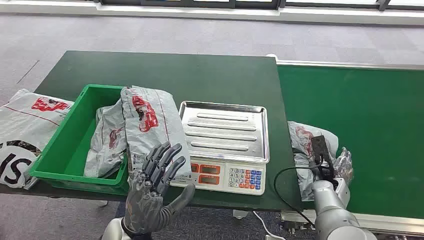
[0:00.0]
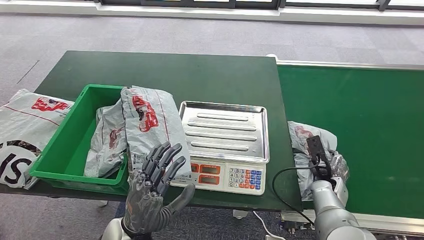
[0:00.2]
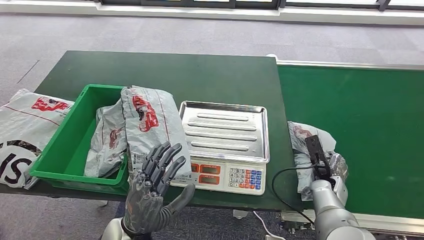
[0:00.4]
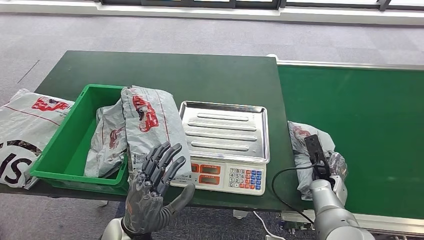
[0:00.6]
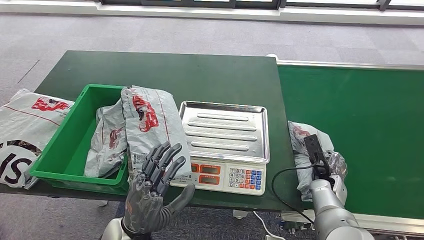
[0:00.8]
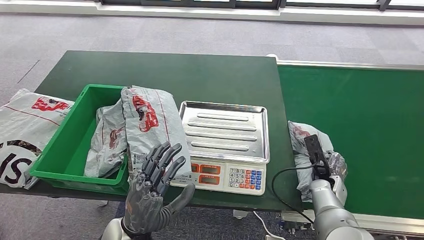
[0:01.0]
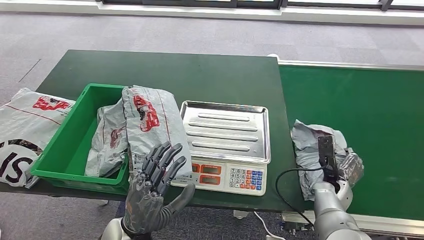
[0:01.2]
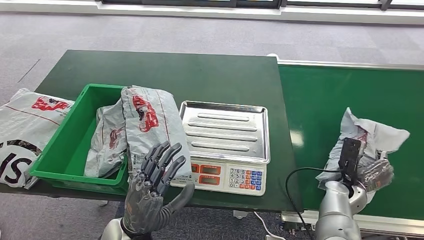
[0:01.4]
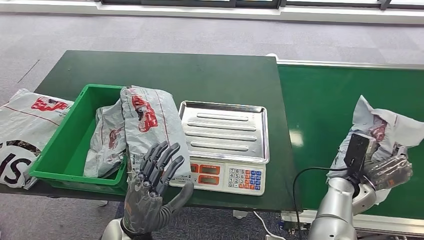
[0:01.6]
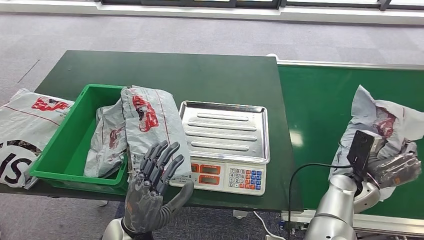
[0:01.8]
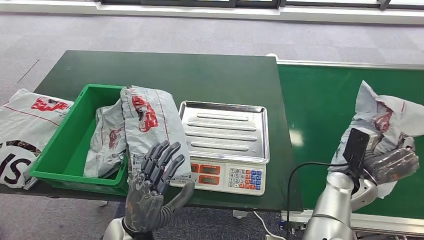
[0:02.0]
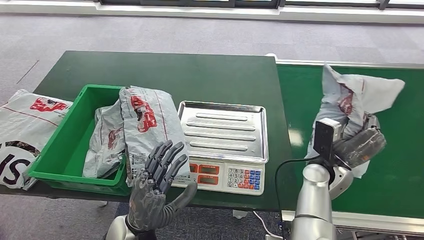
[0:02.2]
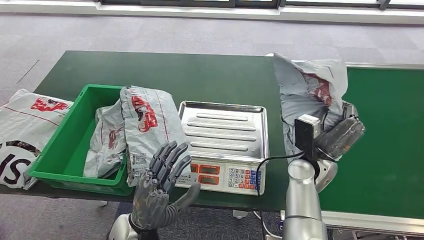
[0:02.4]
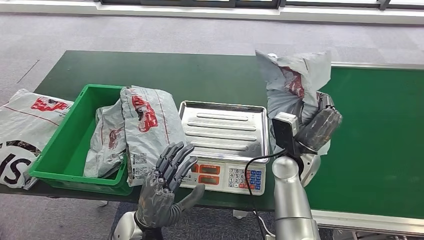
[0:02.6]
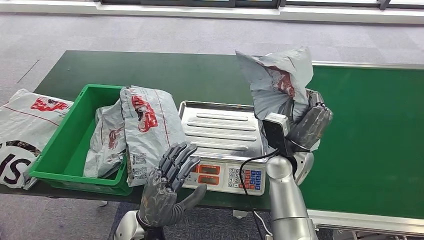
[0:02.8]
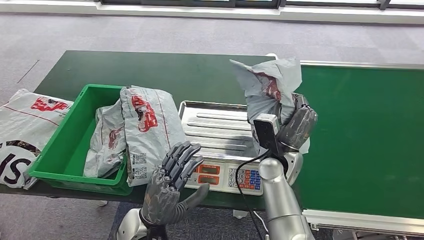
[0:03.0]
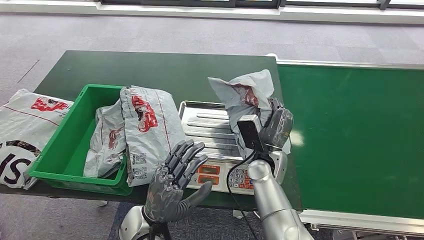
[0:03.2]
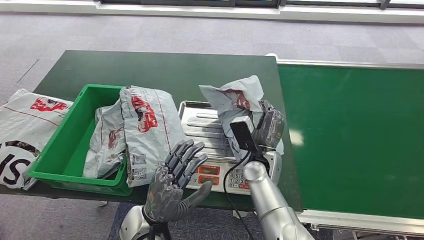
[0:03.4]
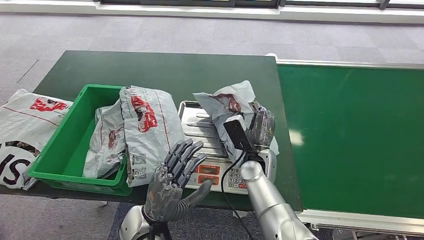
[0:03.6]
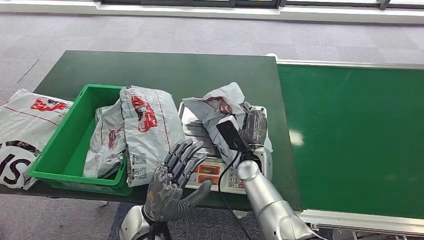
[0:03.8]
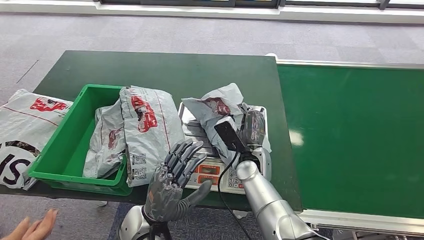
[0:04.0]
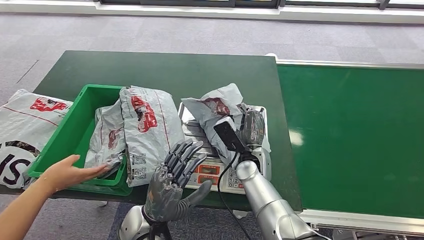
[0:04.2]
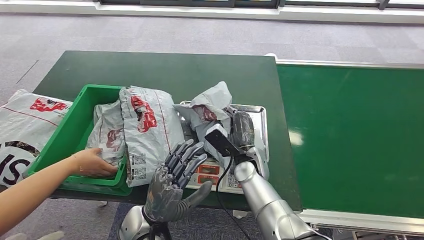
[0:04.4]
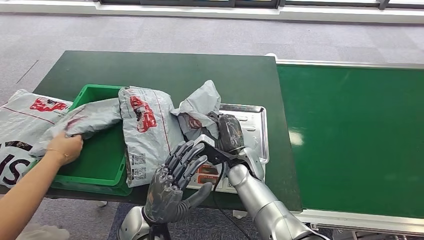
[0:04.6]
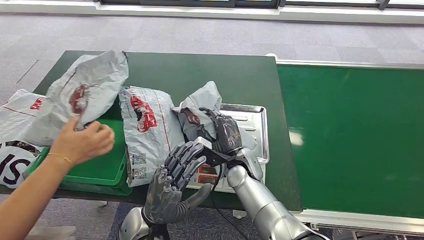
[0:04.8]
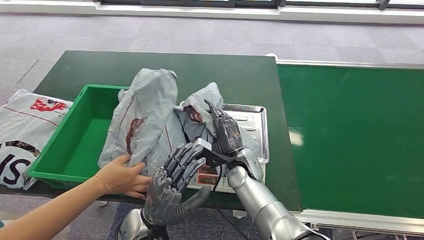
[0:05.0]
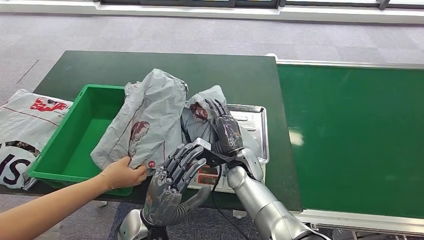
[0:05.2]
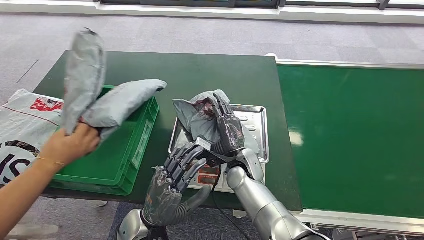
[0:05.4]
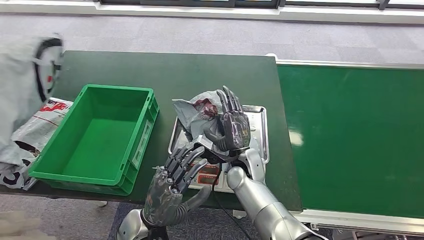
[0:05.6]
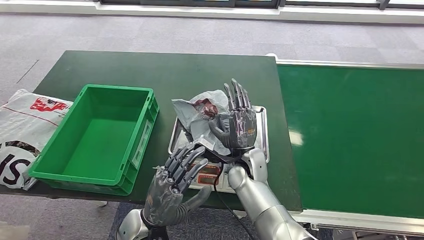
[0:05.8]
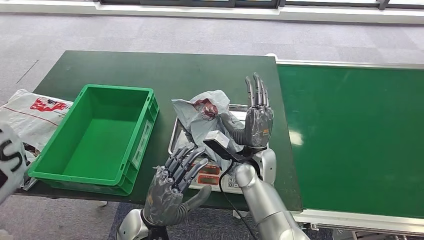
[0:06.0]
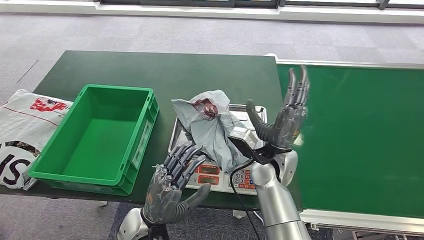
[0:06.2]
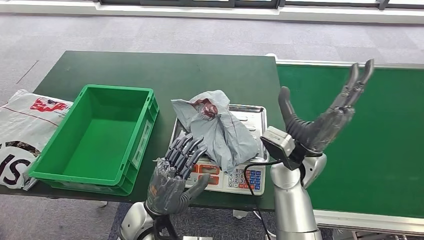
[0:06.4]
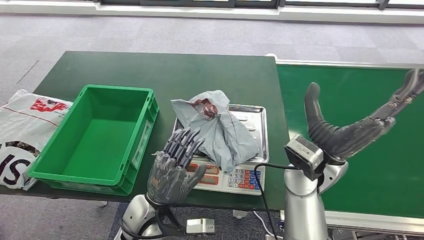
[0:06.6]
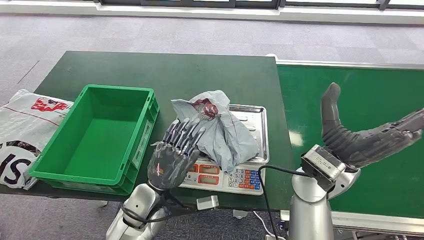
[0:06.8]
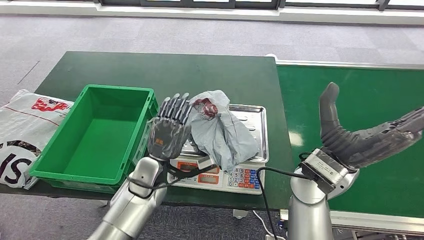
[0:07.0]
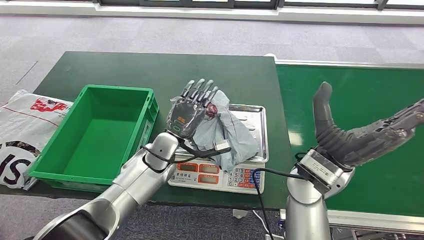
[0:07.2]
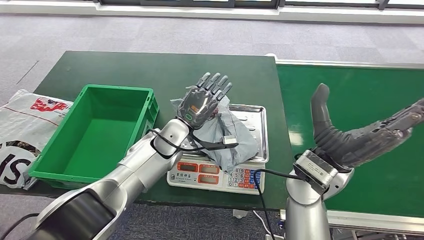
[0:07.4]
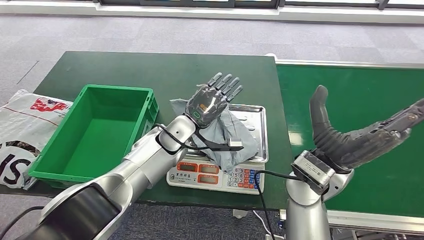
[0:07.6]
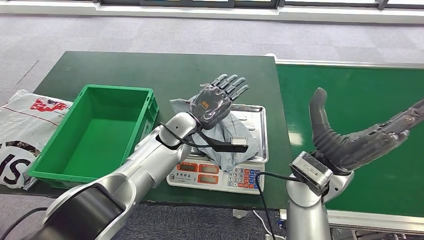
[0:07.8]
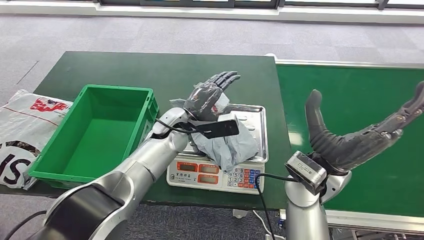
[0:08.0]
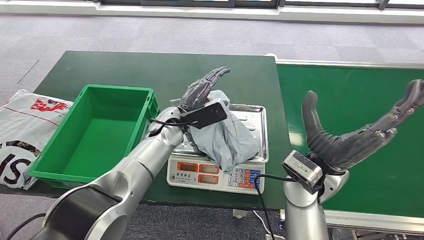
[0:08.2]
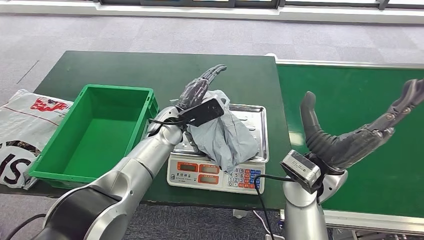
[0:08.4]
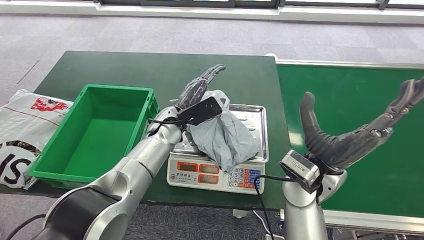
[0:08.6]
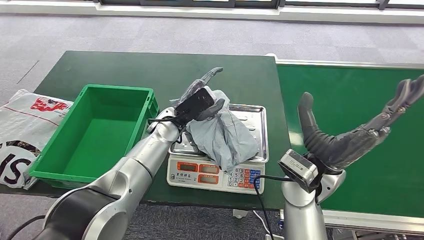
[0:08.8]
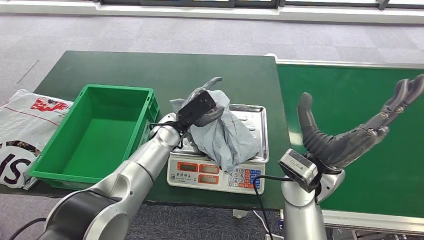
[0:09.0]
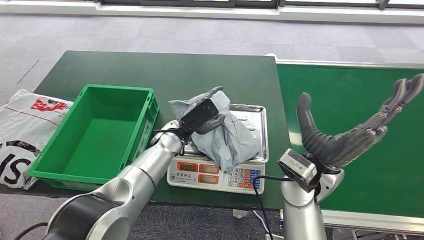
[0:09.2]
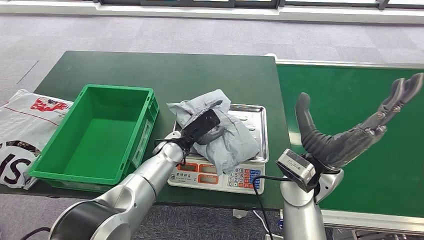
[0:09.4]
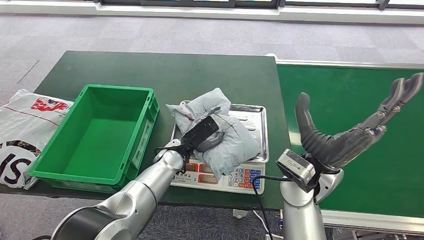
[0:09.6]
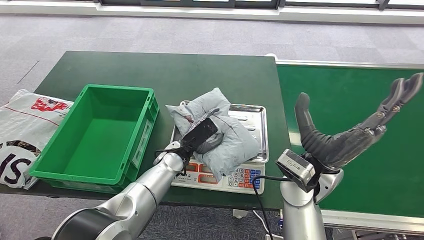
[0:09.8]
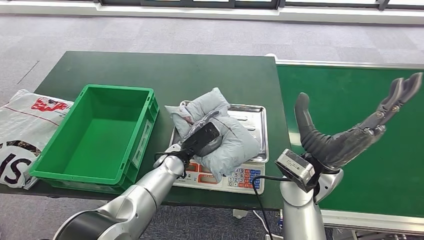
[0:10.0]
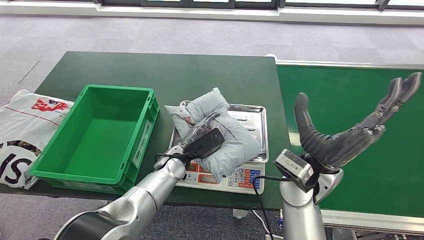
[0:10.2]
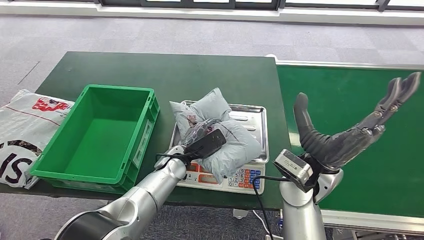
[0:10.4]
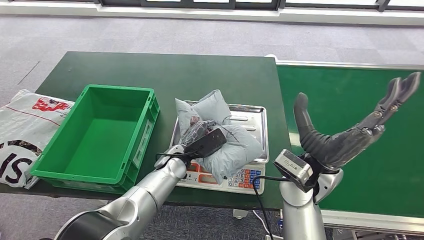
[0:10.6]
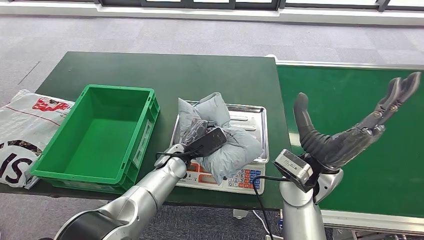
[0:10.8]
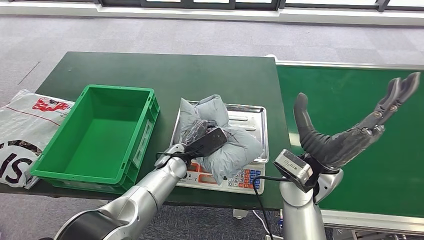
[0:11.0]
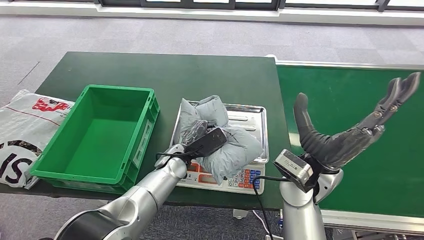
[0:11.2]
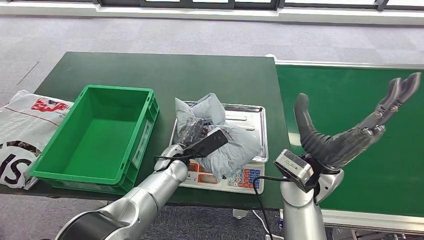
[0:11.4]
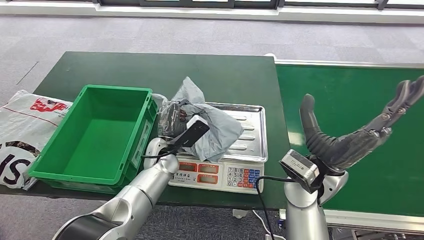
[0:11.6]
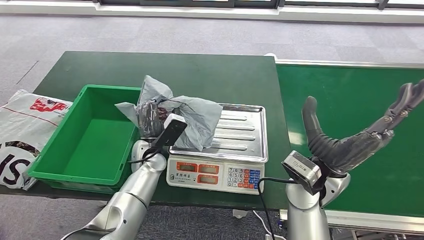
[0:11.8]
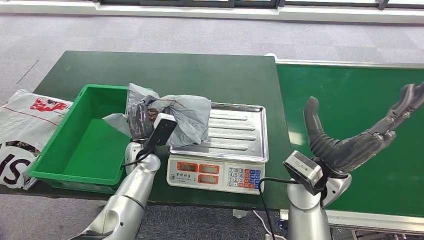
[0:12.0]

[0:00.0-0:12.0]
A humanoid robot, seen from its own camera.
Task of the whole recording: Weigh the package on the weighing device and place it in the left basket.
Step, 0:00.0 to 0:01.6: Pick up the package from the conveyor belt.
Step, 0:01.8 to 0:05.8: Place the package onto the inbound machine.
Step, 0:06.0 to 0:12.0: Pick up the package from the inbound machine.
0:03.0 to 0:04.4: The right hand heads to the left, covering about 5 cm.

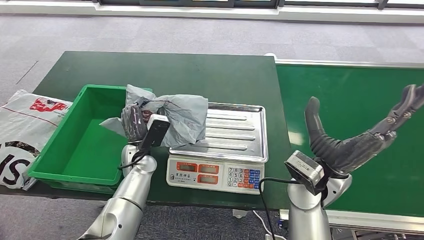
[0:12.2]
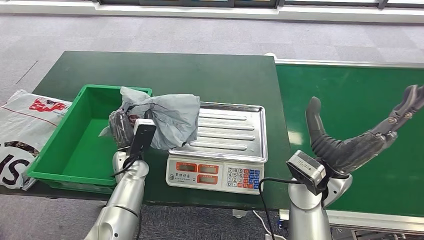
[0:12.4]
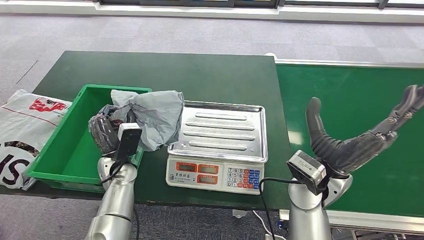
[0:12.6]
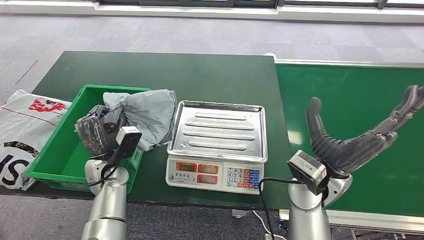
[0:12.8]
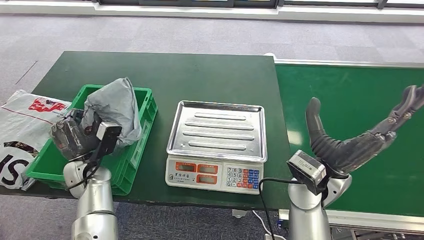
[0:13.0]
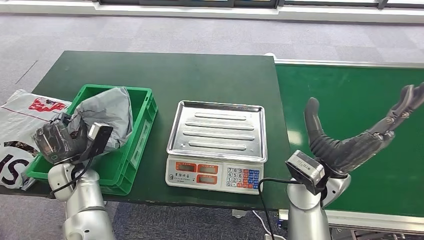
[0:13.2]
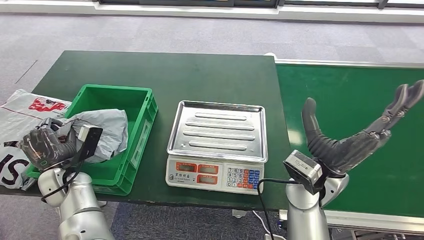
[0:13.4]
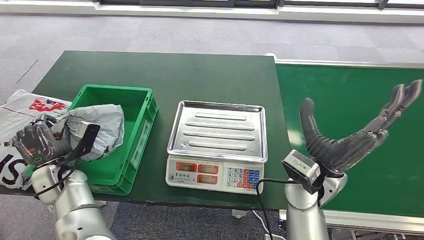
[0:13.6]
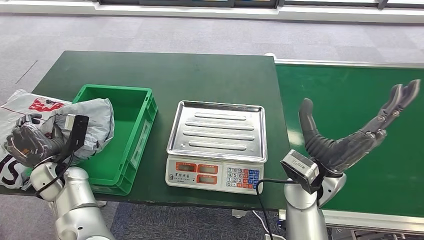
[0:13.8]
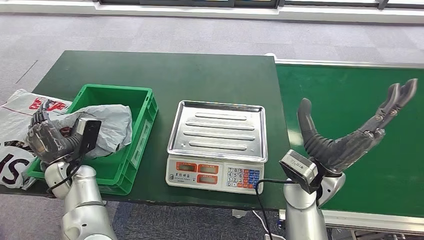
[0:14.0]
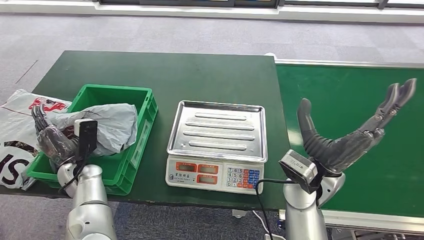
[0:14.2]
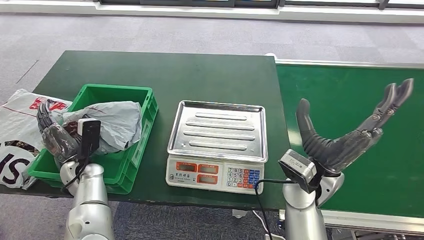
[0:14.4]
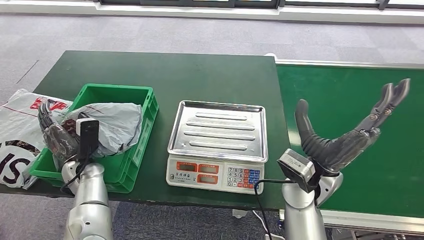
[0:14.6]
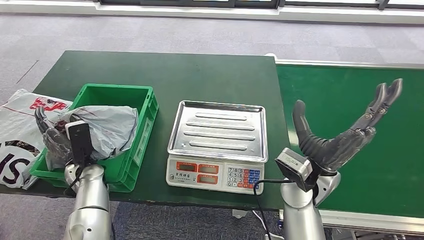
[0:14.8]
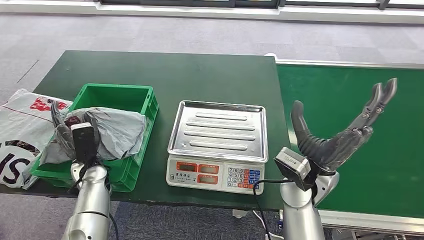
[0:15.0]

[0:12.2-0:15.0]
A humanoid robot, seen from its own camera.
Task of the whole recording: Weigh the package on the weighing device and place it in the left basket.
Step, 0:12.2 to 0:14.8: Place the package into the parcel locker.
0:13.6 to 0:15.0: The left hand shifts some 5 cm to the right.
